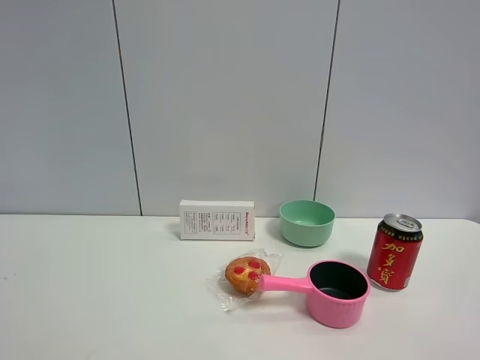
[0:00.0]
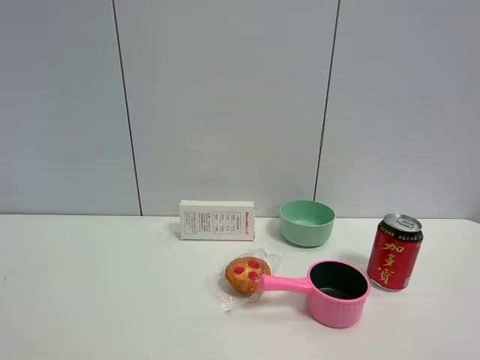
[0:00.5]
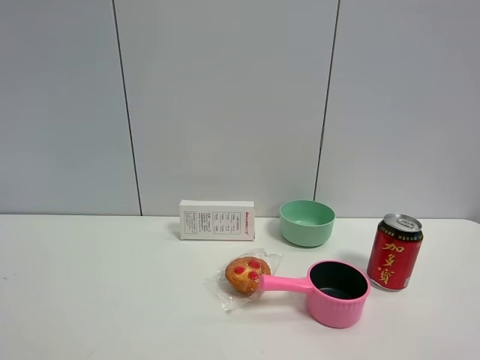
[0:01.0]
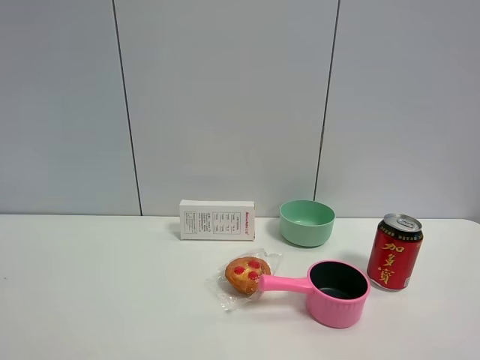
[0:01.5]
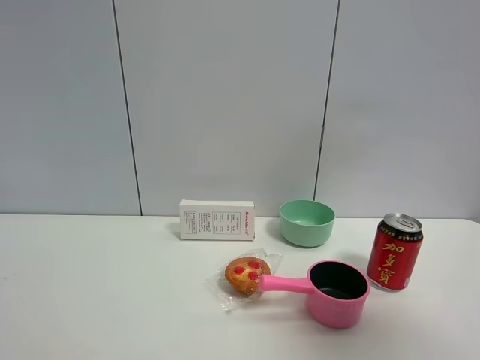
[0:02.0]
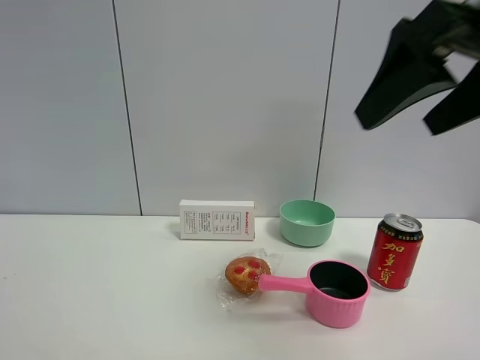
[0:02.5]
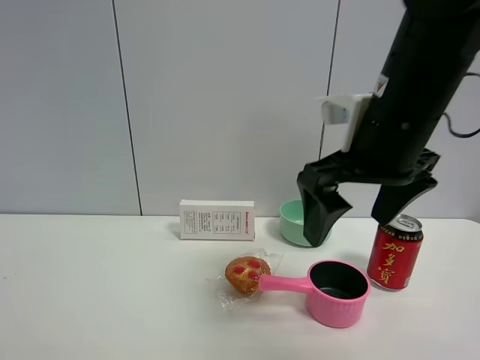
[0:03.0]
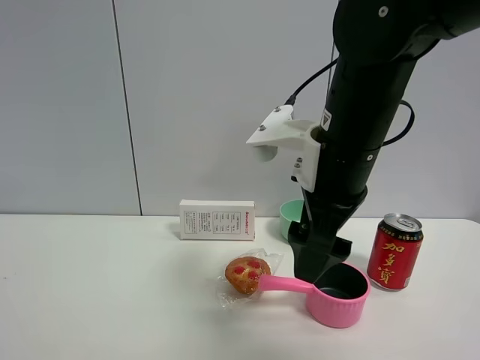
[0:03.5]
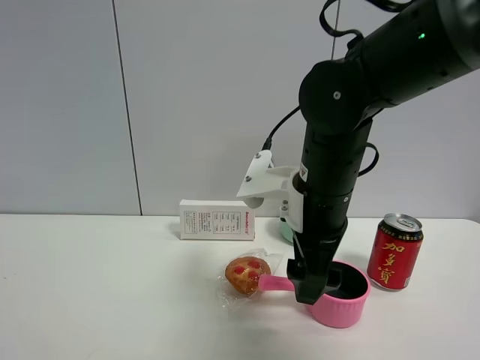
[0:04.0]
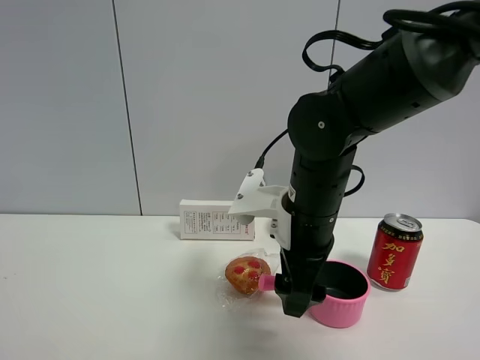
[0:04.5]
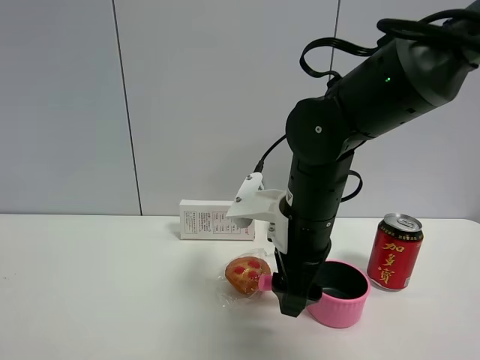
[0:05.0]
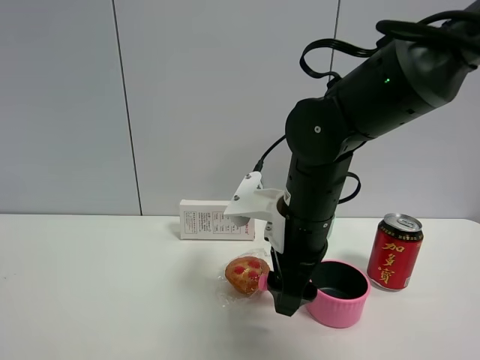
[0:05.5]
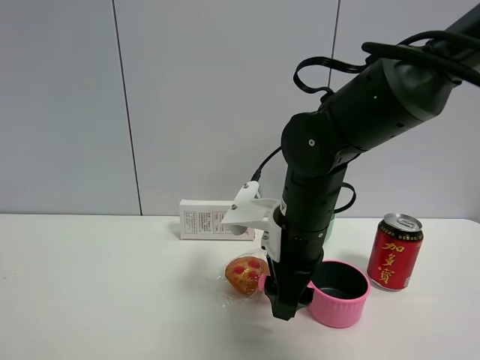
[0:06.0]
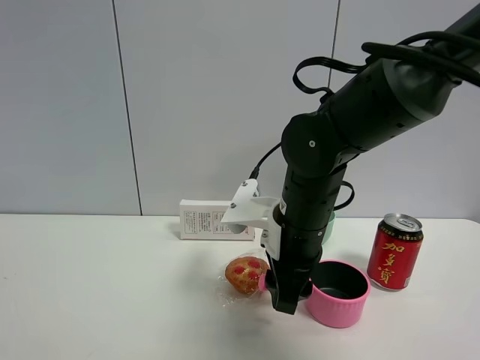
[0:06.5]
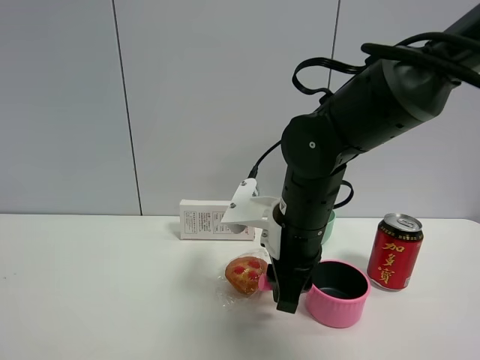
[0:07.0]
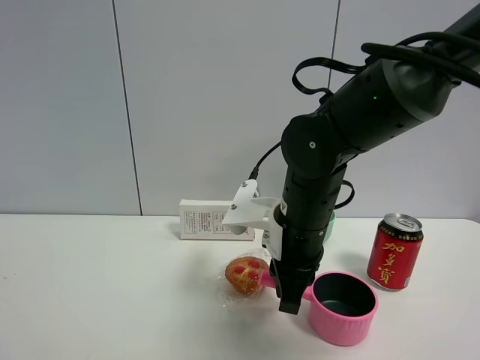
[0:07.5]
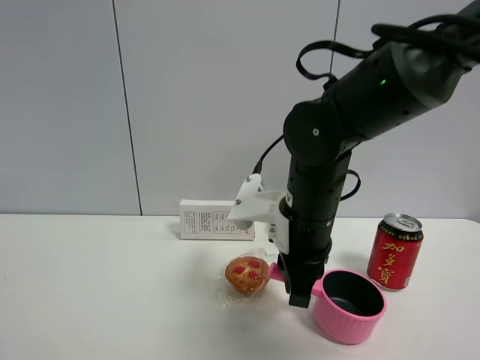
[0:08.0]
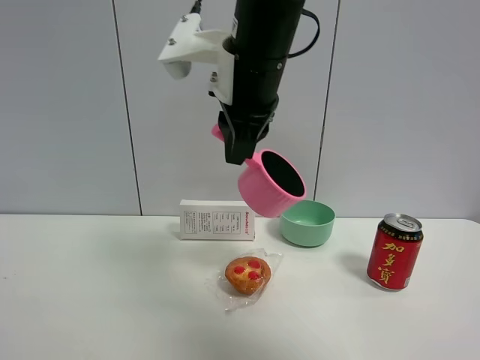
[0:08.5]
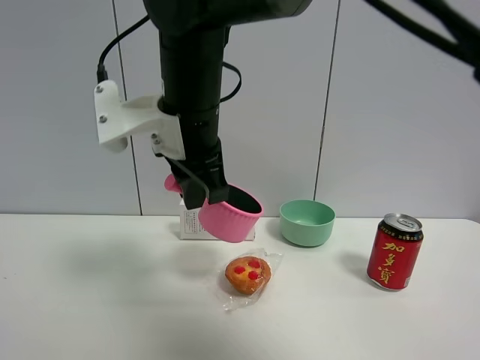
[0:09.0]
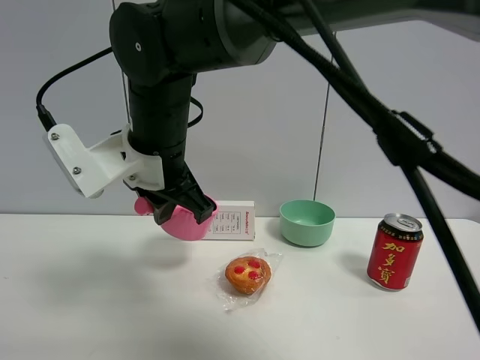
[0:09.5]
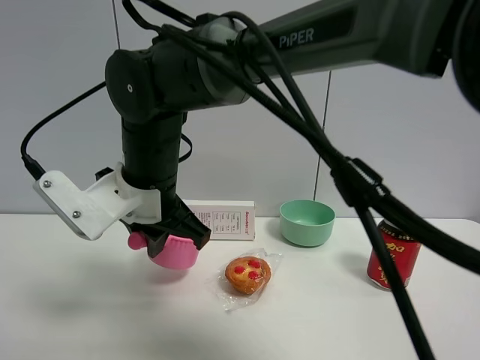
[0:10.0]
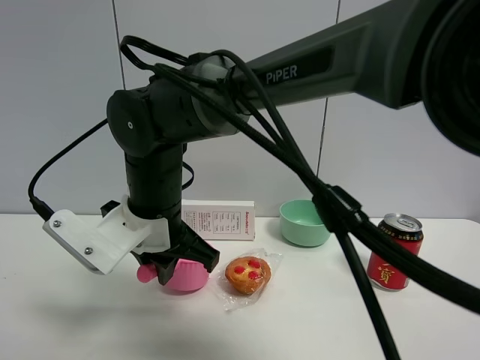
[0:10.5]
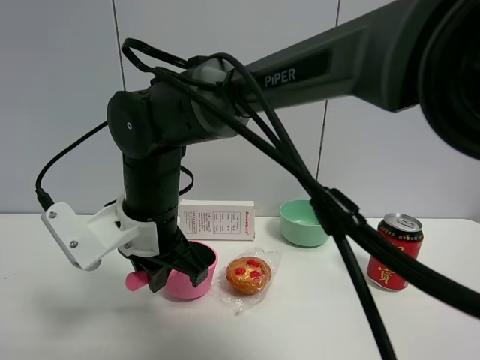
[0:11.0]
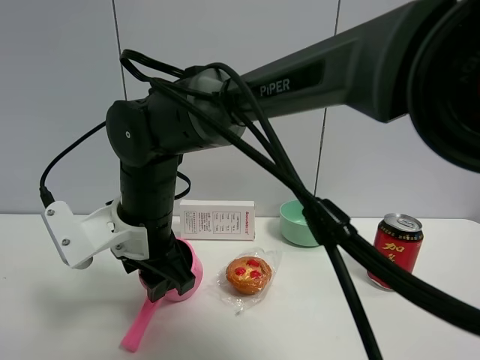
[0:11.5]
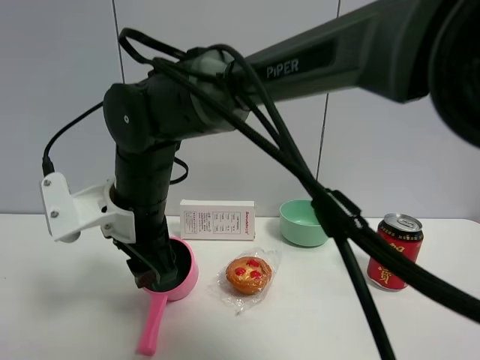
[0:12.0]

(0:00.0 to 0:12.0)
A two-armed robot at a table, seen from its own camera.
Task of the whole recording: the gripper move the object.
Step, 0:00.0 - 0:07.0: Grasp the pink pot with the right gripper.
Step, 0:07.5 - 0:12.0: Place the pink pot on the table with the right gripper.
0:00.0 - 0:02.0: The right gripper moves upward and forward, roughly 15 cm.
0:02.0 - 0:04.0: The right gripper goes some 35 cm downward, to the left and forward.
0:04.0 - 0:06.0: The right gripper closes.
0:06.0 - 0:08.0: The right gripper closes.
0:08.0 - 0:10.0: The right gripper shifts about 20 cm to the left.
0:10.0 - 0:12.0: The right gripper opens.

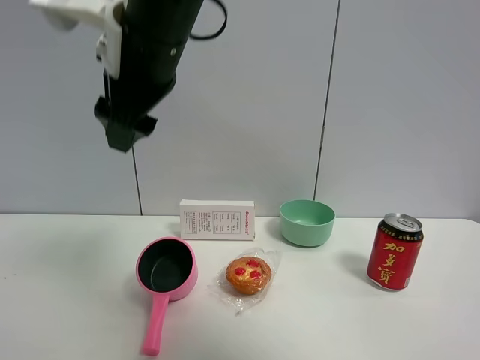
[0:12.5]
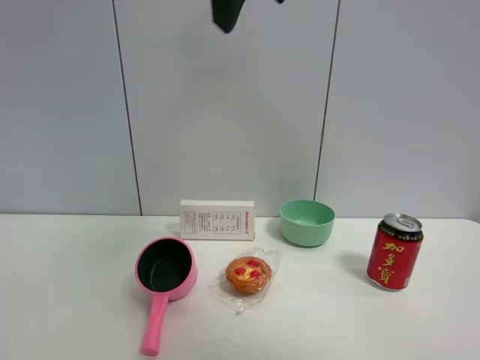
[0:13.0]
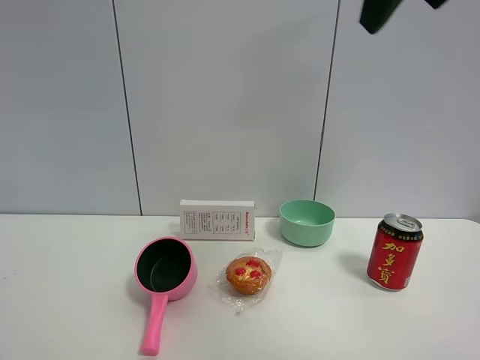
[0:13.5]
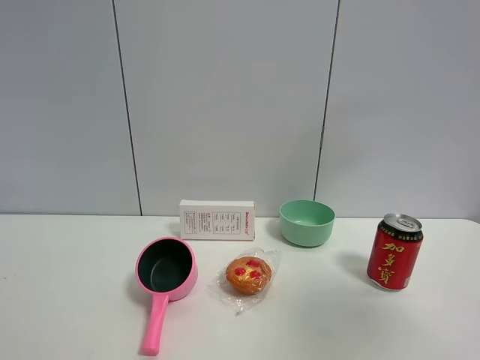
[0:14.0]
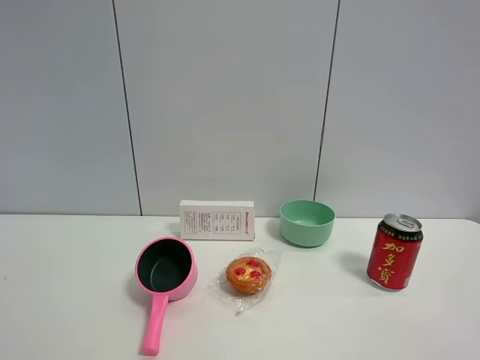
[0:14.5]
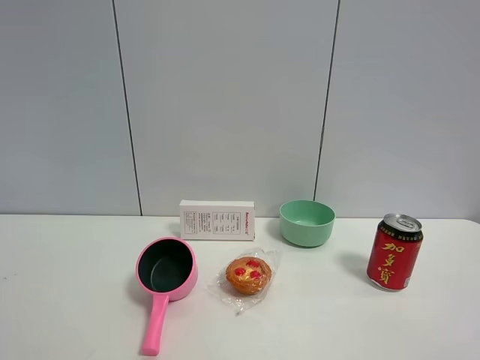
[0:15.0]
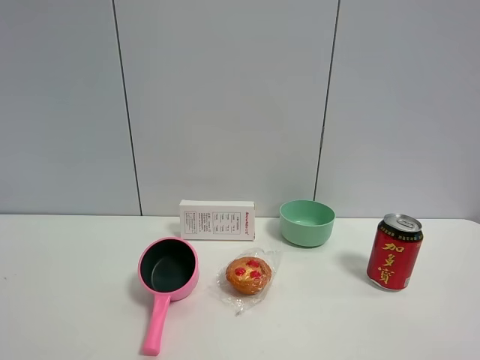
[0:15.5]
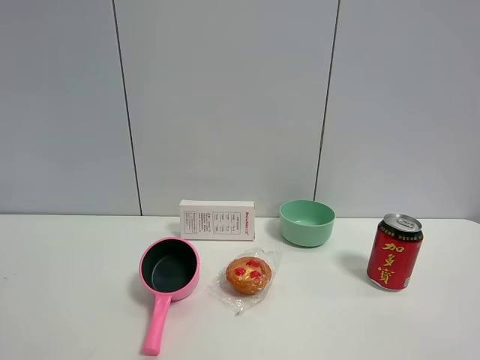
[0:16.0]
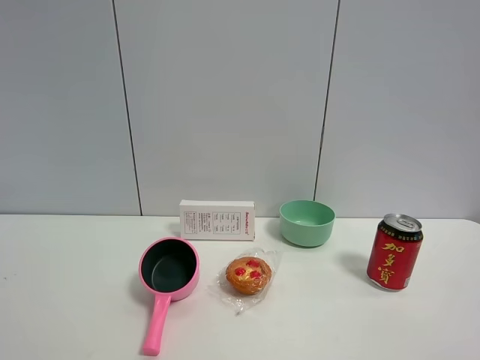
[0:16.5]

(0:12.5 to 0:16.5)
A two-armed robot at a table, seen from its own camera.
Task of the whole recording: the gripper move the object.
0:12.5 - 0:14.5: The right gripper goes about 50 cm to the right and backward.

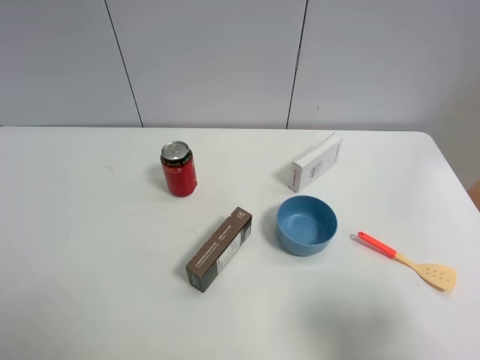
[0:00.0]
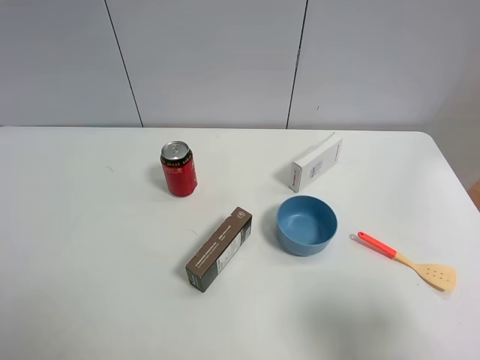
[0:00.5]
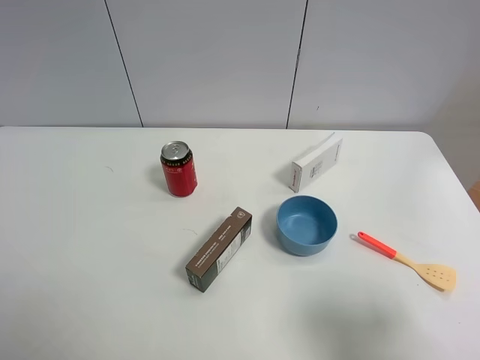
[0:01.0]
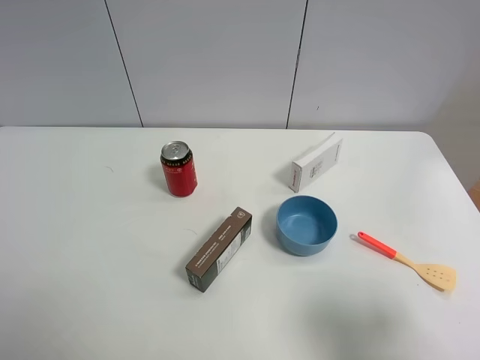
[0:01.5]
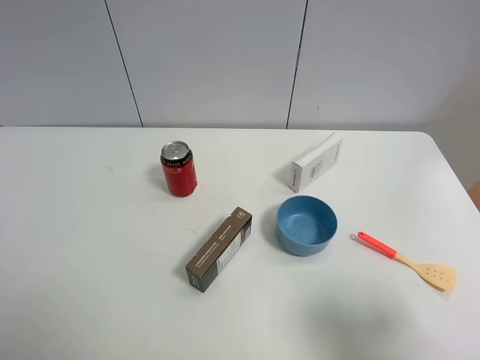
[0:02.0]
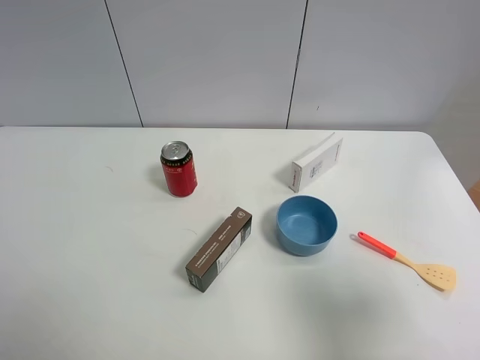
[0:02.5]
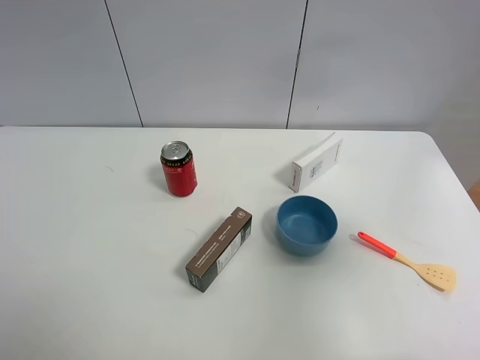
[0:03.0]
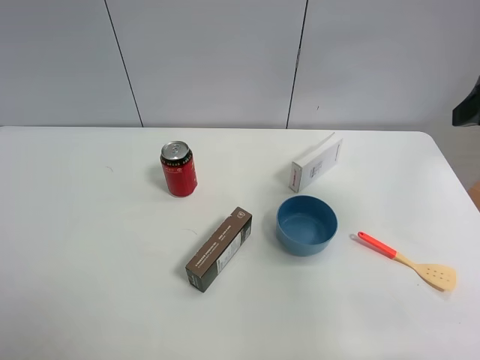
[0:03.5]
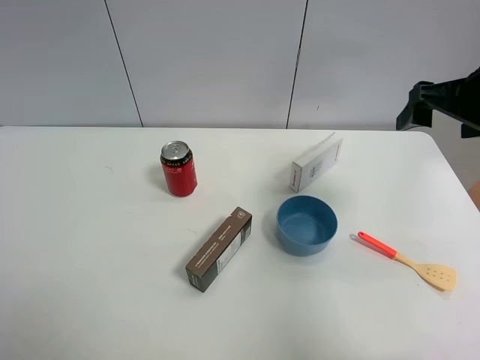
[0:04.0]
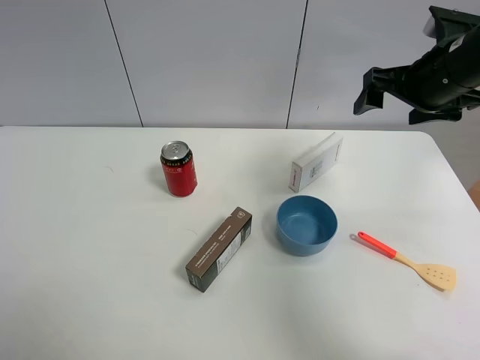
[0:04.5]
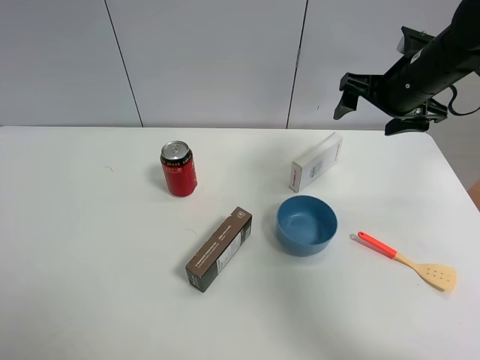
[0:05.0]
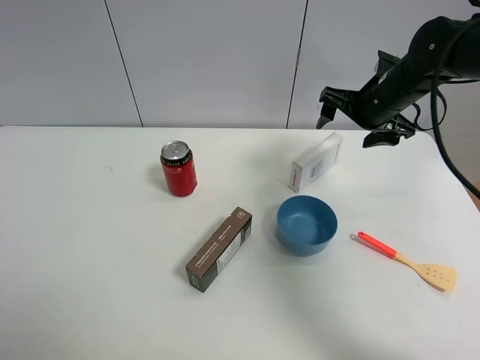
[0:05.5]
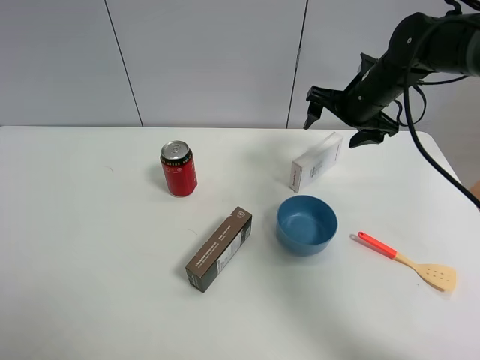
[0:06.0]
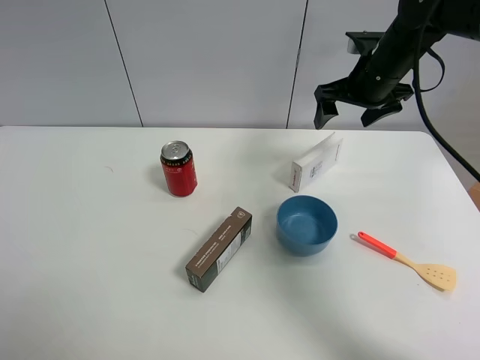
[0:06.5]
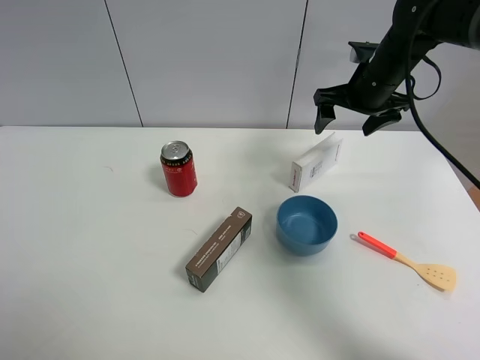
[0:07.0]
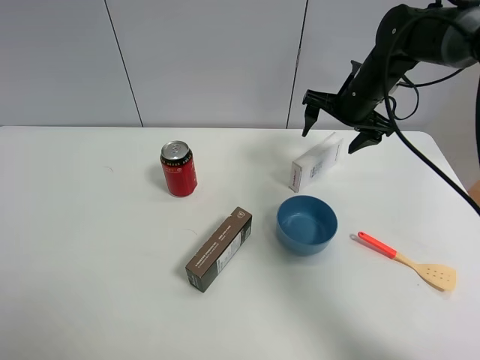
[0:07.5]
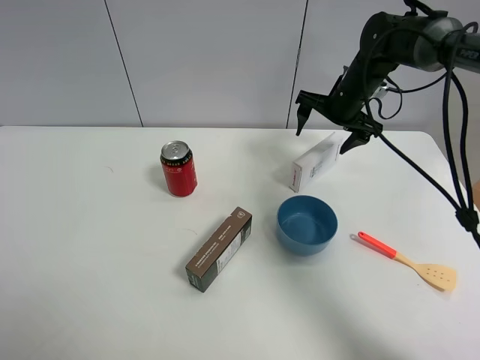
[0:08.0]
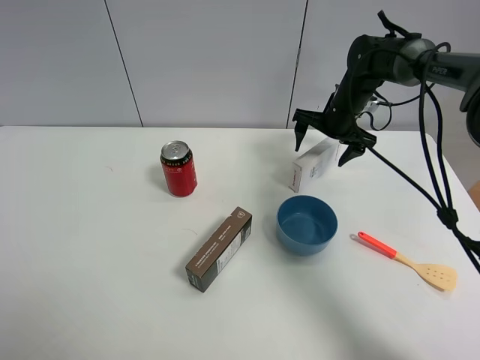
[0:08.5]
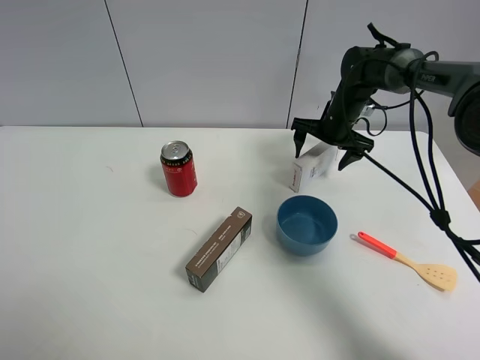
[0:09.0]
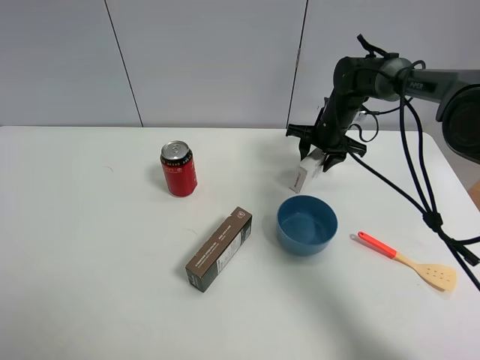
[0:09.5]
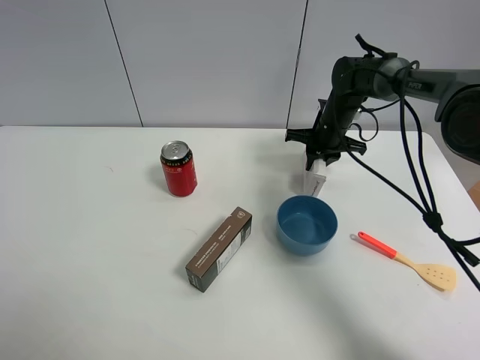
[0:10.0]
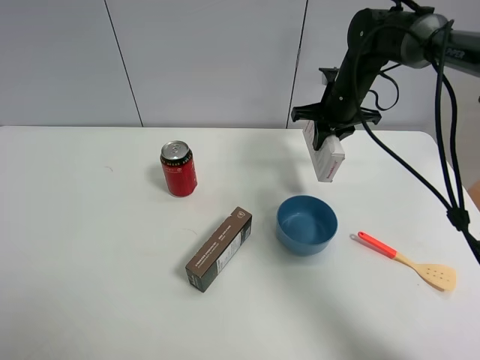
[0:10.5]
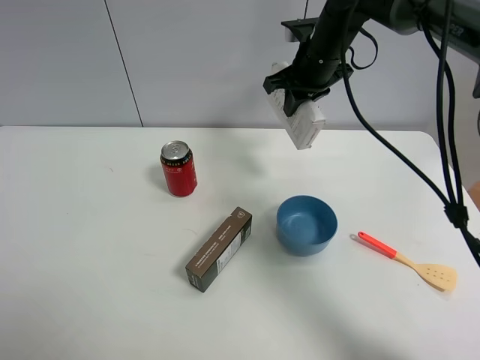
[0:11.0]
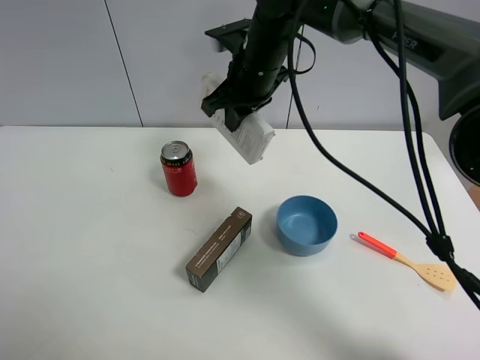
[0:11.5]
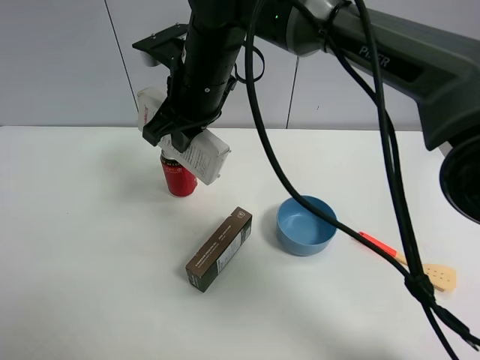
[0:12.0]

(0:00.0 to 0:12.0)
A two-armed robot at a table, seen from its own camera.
Task of the whole recording: the gripper move the object.
Step, 0:00.0 - 0:09.5: Grasp the USB box with the right gripper.
0:00.0 - 0:02.0: Neither gripper changes place.
0:02.0 - 0:04.0: The right gripper shifts approximately 25 cm forward.
0:04.0 - 0:06.0: The right gripper travels forward, downward and to the left by roughly 20 cm.
0:06.0 - 0:08.0: The right gripper is displaced forward by roughly 5 cm.
0:08.0 - 0:10.0: The right gripper goes roughly 5 cm downward, and closes.
0:10.0 - 0:12.0: The right gripper travels to the left, upward and backward by approximately 30 cm.
